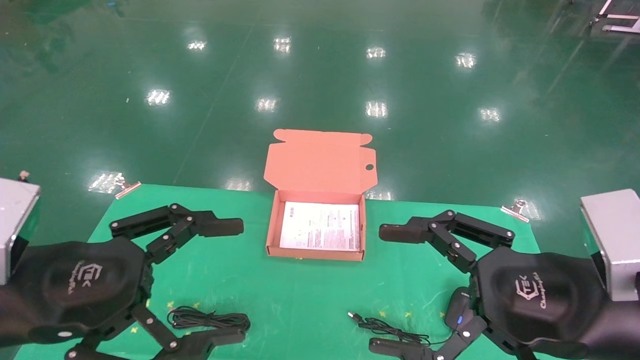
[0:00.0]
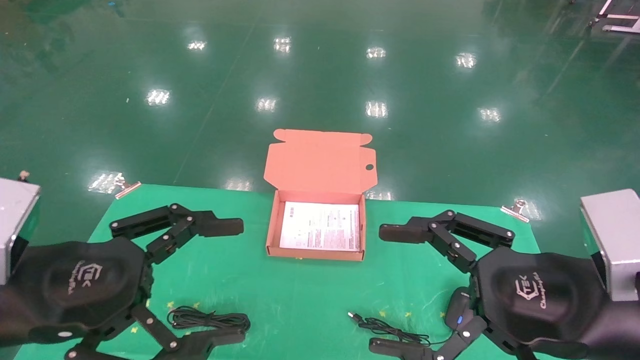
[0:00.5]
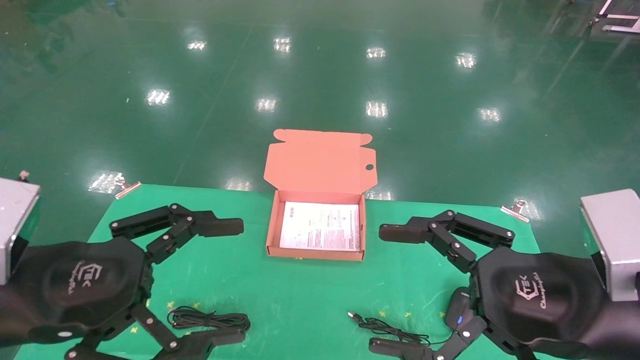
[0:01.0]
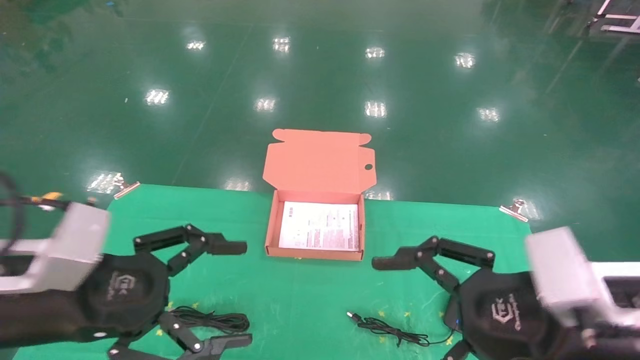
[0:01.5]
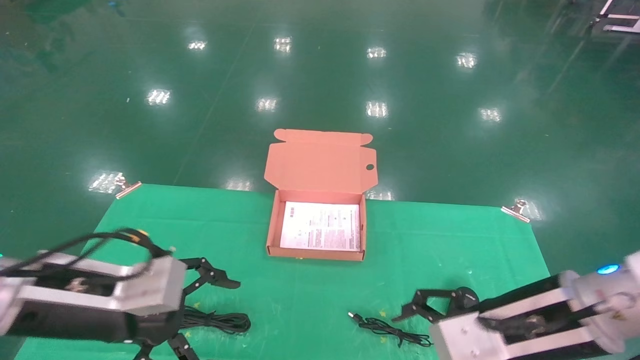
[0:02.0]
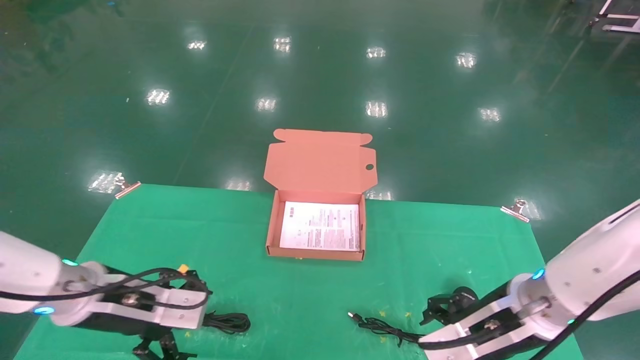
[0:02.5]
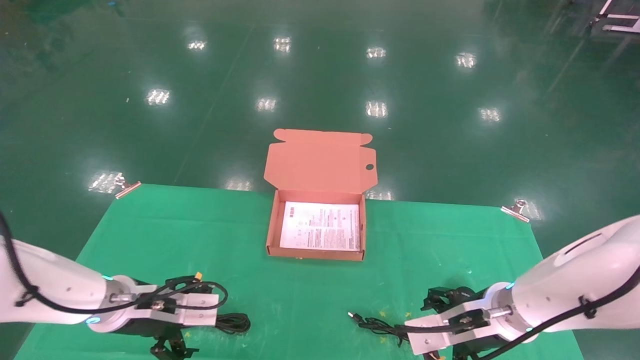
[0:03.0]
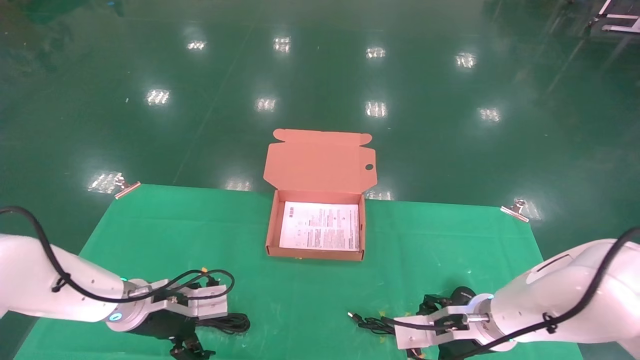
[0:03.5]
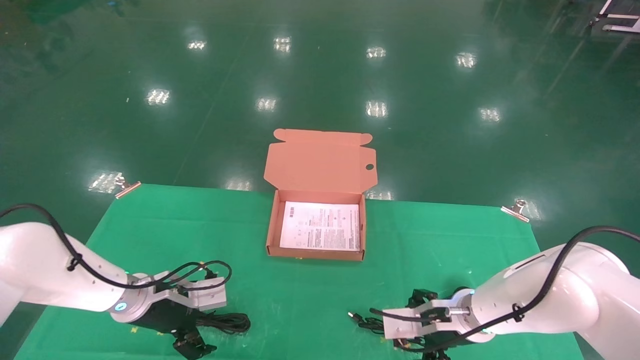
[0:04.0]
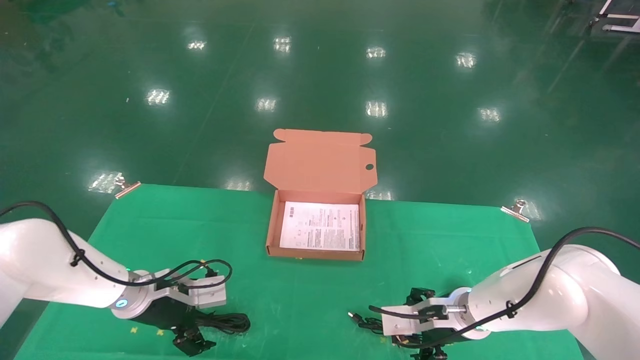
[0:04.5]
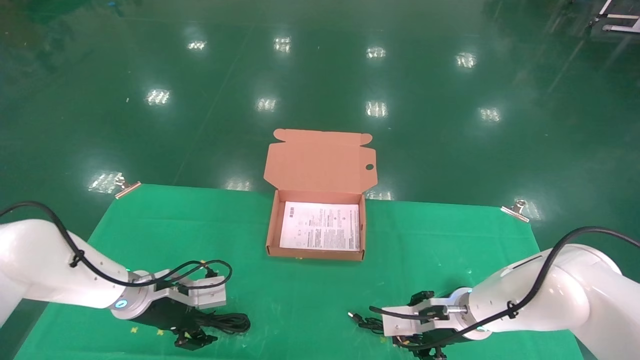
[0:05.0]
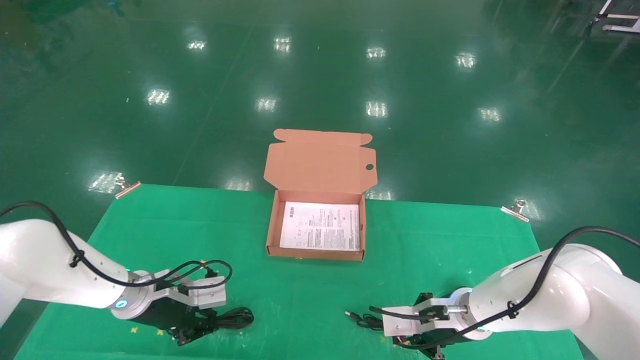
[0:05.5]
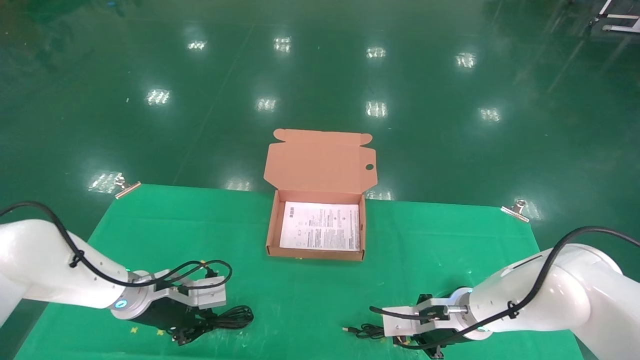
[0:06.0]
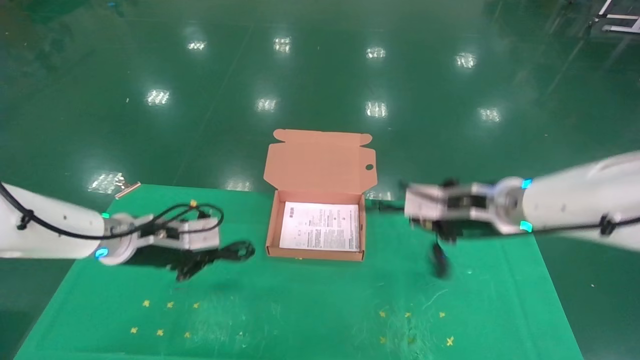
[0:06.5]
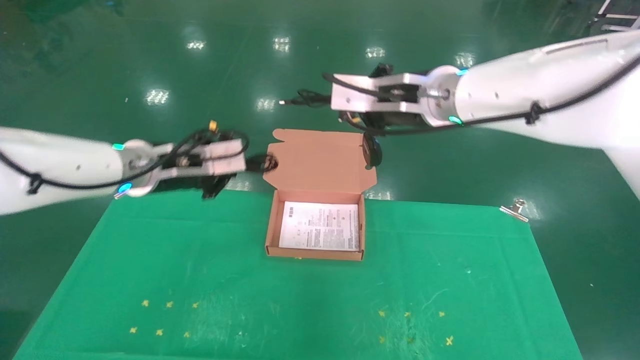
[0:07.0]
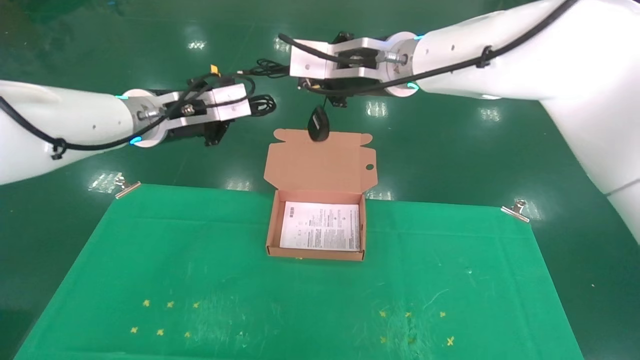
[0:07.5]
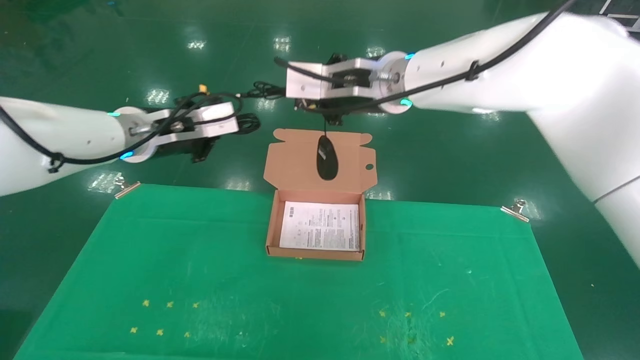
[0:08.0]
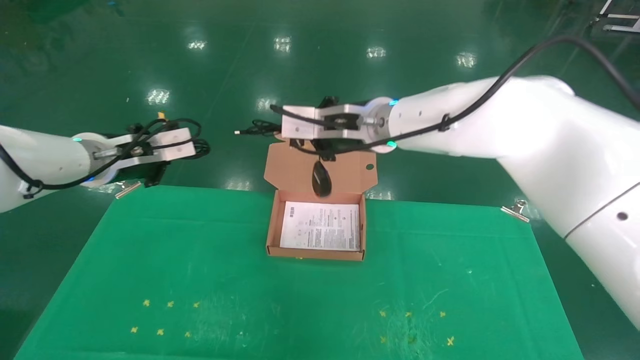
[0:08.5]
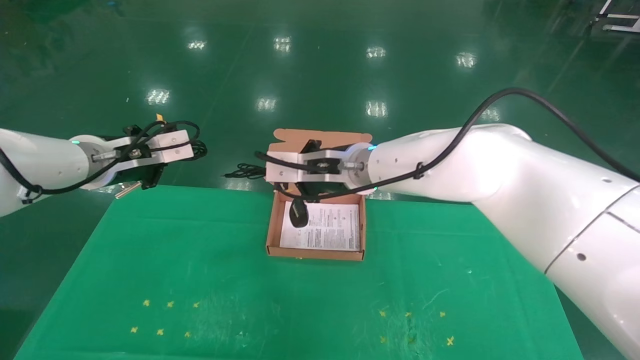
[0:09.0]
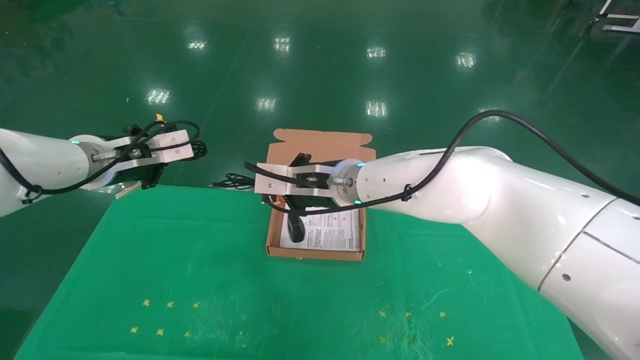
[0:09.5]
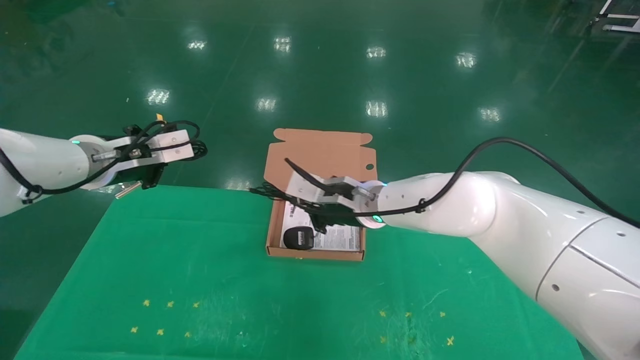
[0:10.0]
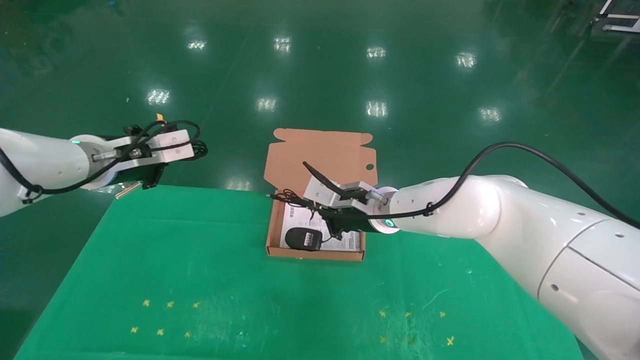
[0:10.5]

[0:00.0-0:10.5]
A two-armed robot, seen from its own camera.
Task of the whole recording: grasp data cable left put into box grasp mouse right put into box.
Step, 0:01.5 to 0:06.0: Grab and pick up both the mouse and power cord from the accessory packaging area at the same time.
0:00.0 to 0:02.0: Both grippers travel together forward, about 5 cm.
0:02.0 to 0:04.0: The two grippers go approximately 20 cm forward and downward.
0:04.0 to 0:06.5: The right gripper travels upward by about 20 cm, and closes up. The left gripper moves upward, some 10 cm, and closes.
0:06.5 to 0:08.5: The left gripper shifts roughly 10 cm upward; the right gripper moves to the left and upward, about 15 cm.
0:08.5 to 0:10.5: The right gripper heads downward, covering roughly 15 cm.

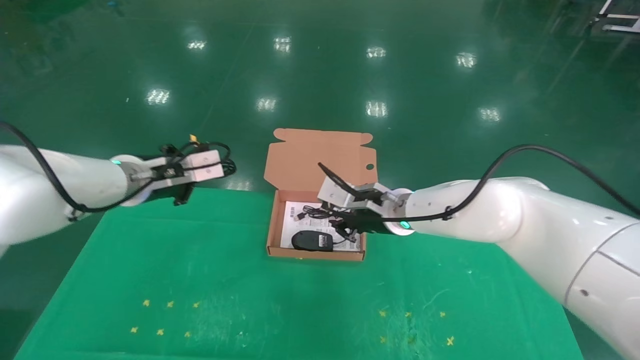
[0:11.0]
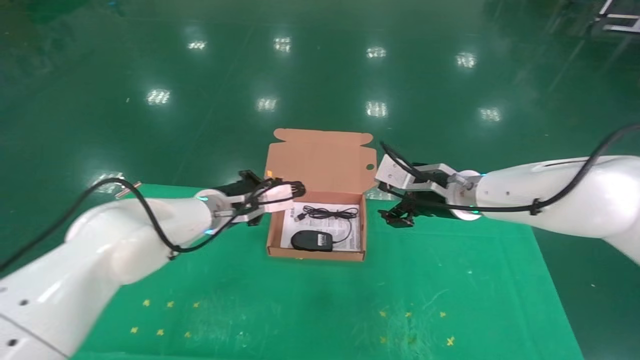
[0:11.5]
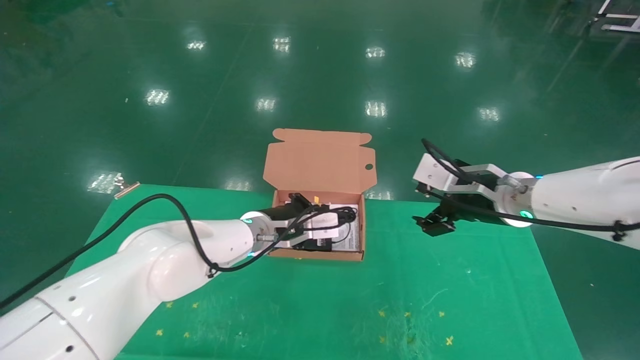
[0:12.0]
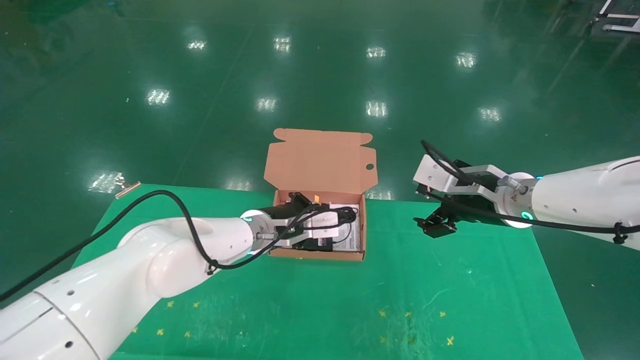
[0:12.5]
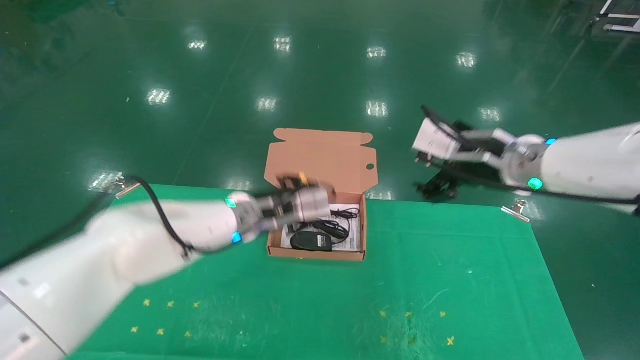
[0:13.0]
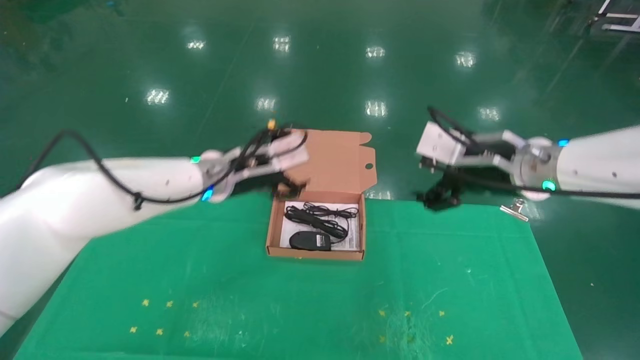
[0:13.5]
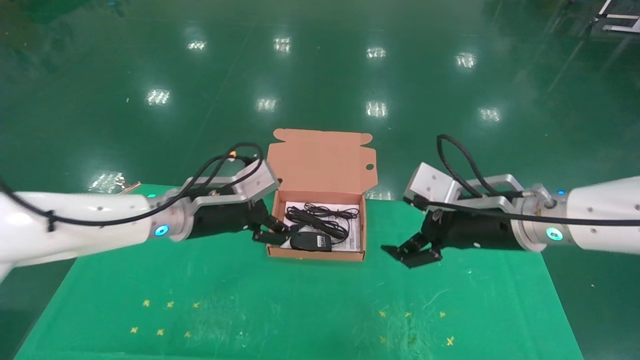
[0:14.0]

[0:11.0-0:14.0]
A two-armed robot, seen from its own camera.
Task of the whole recording: grasp data cable left put into box grasp mouse right put into box.
Step, 0:11.0 to 0:13.0: Place the mouse and power cord into the box.
0:11.0 to 0:12.5: The right gripper is displaced to the right and backward by approximately 15 cm, and opens up, while the left gripper moves to the right and downward, roughly 20 cm.
0:12.5 to 0:14.0: The left gripper moves to the left, backward and upward, some 15 cm, and opens. The right gripper heads backward, covering about 5 cm.
